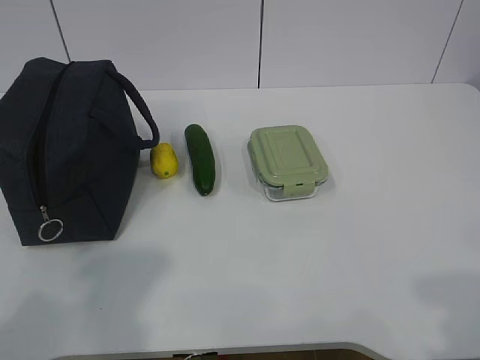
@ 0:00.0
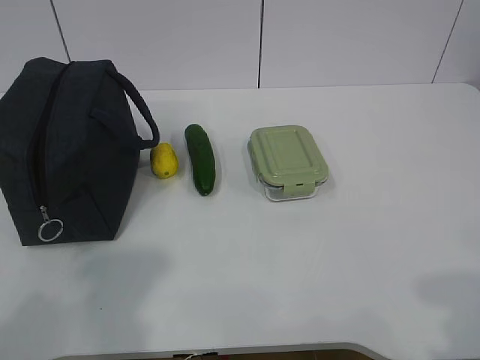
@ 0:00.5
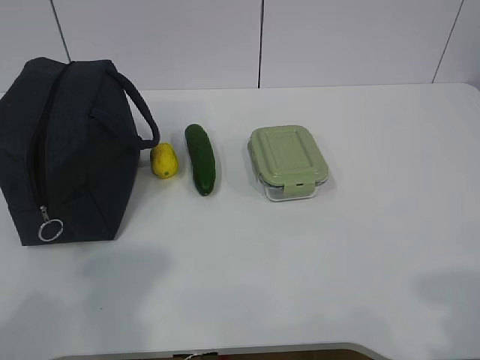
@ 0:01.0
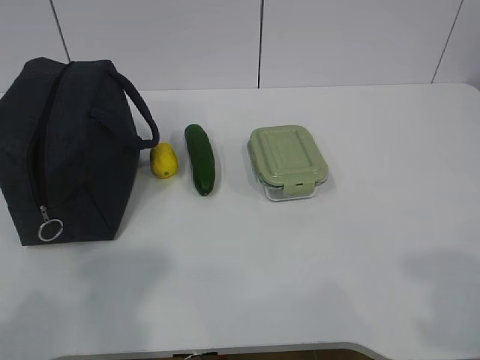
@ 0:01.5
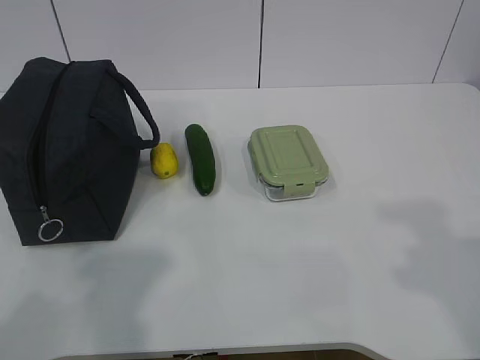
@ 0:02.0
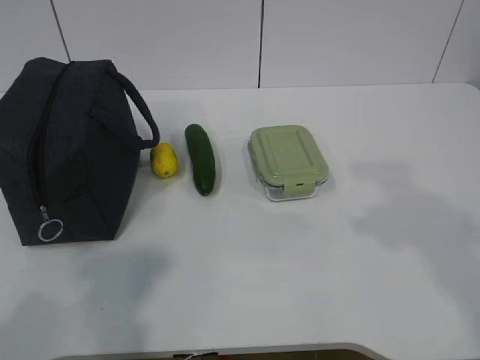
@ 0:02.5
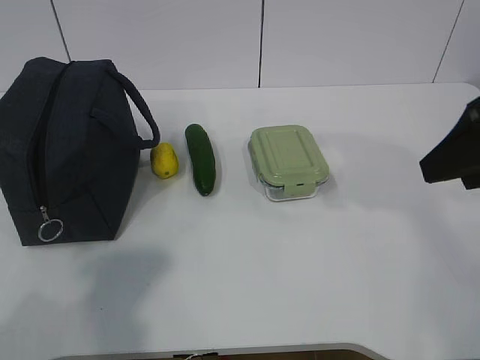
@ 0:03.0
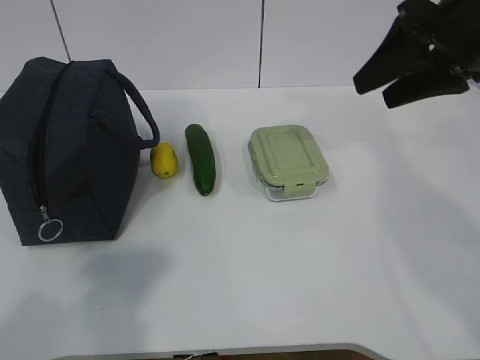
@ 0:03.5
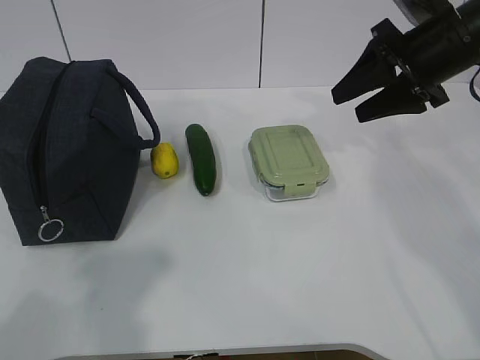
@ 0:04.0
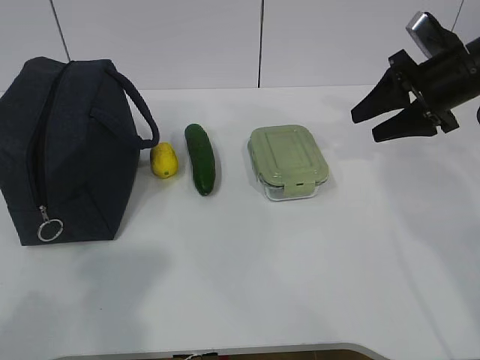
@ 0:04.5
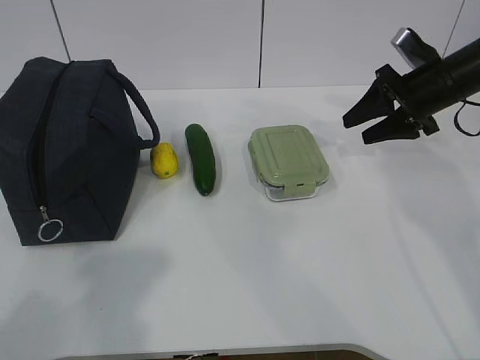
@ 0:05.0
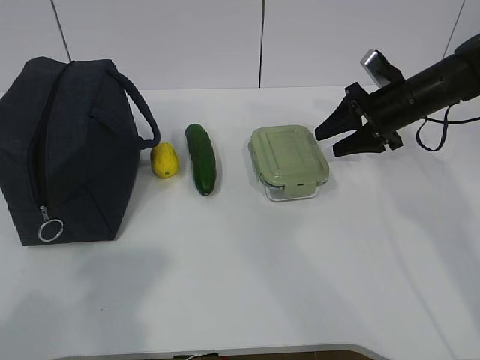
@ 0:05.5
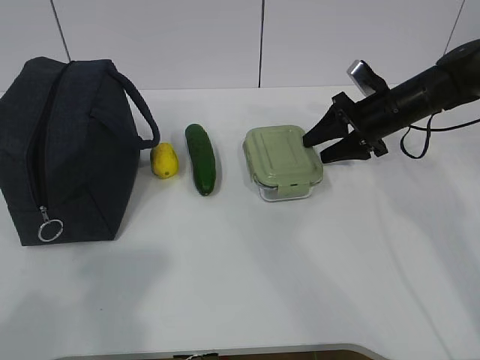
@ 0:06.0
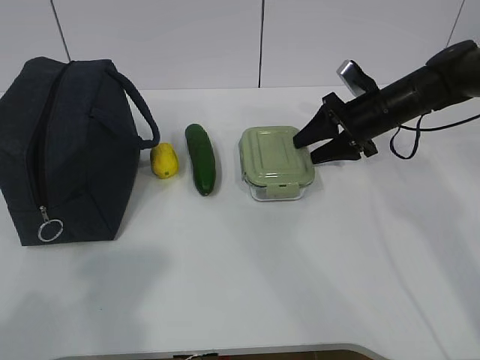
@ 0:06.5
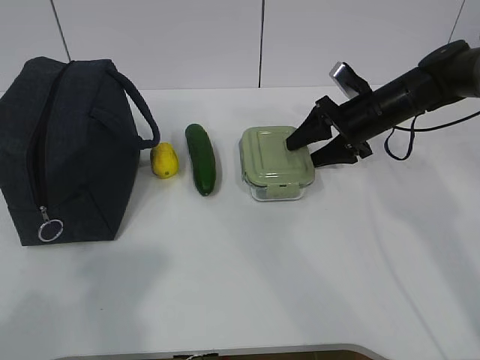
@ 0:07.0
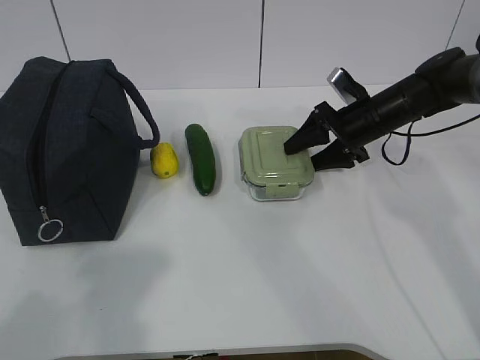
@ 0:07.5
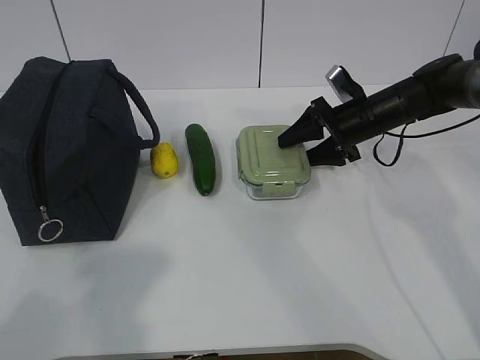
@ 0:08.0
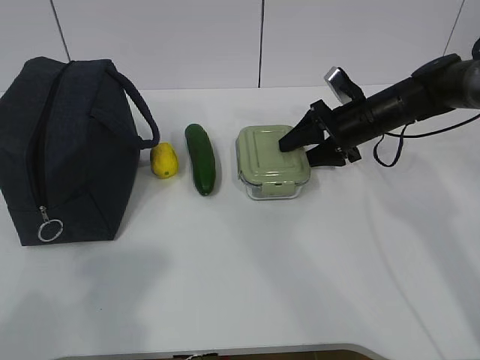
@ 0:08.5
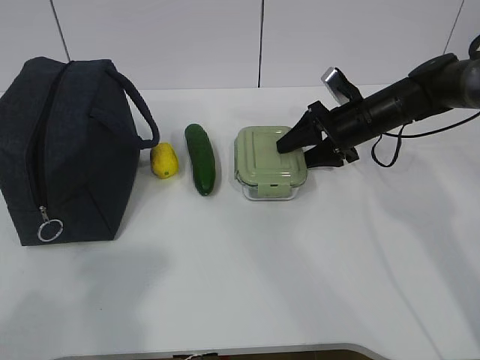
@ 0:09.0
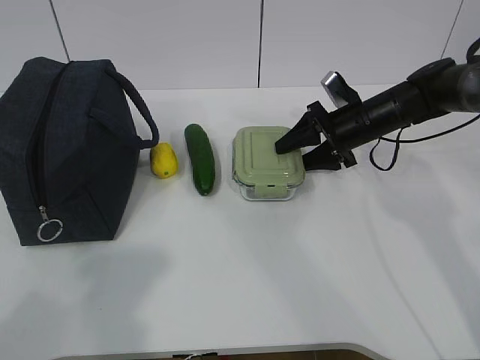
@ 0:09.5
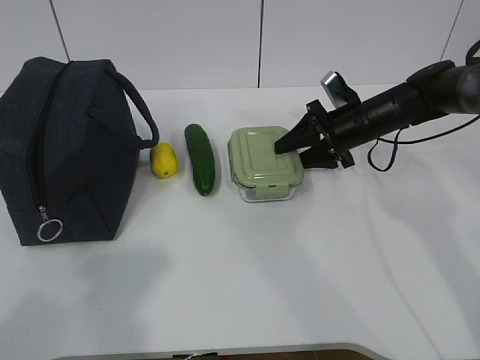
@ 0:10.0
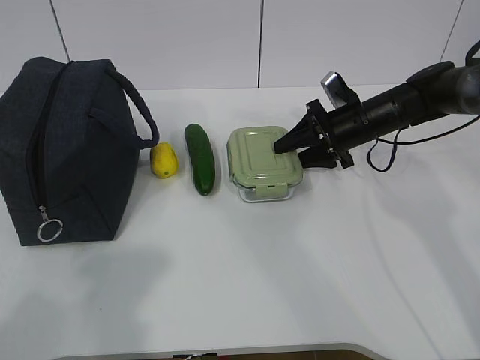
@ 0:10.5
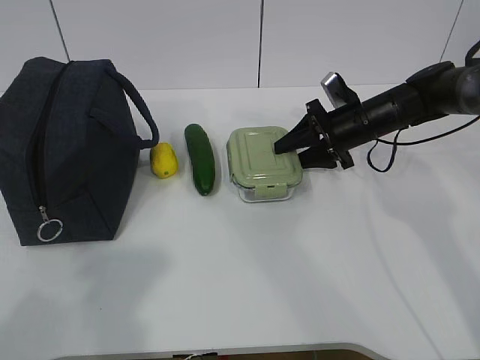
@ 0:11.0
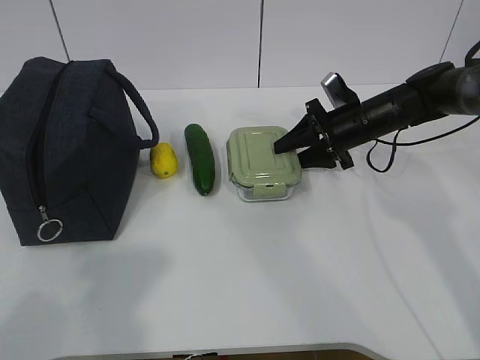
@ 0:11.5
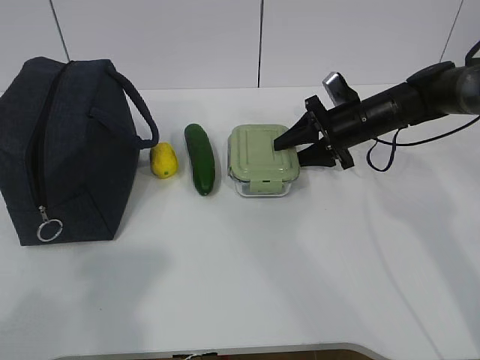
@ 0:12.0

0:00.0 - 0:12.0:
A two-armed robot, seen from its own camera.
Step, 0:00.0 - 0:09.5: Grab the lunch box with your right hand.
0:02.0 - 0:04.0: The right gripper goes roughly 30 cm forward.
0:04.0 - 0:06.0: The right gripper moves downward and forward, roughly 15 cm.
0:06.0 - 0:08.0: The grippers stay close to where they were, moving slightly.
0:08.0 - 0:10.0: The two grippers keep their place.
0:10.0 - 0:12.0: The grippers make only small movements.

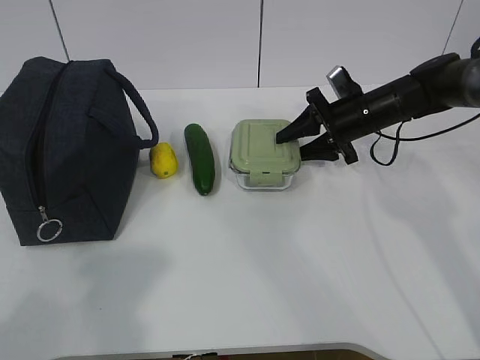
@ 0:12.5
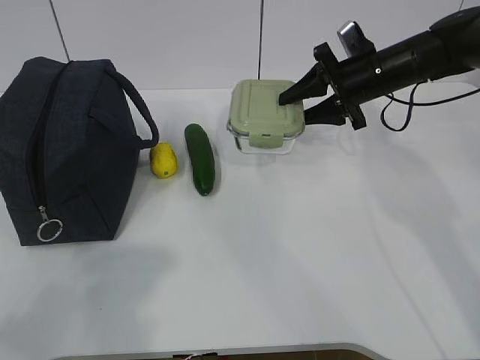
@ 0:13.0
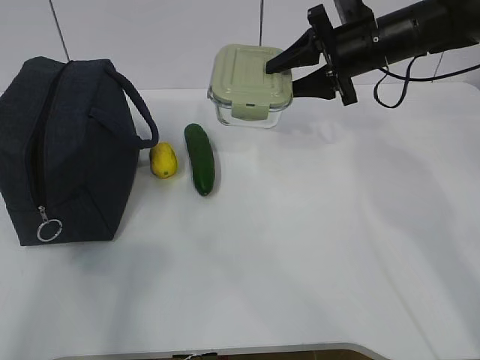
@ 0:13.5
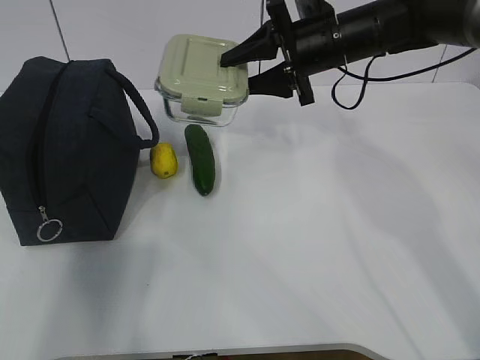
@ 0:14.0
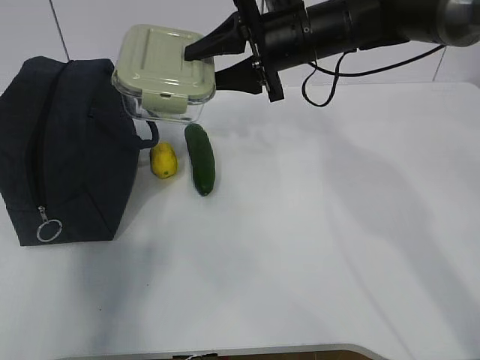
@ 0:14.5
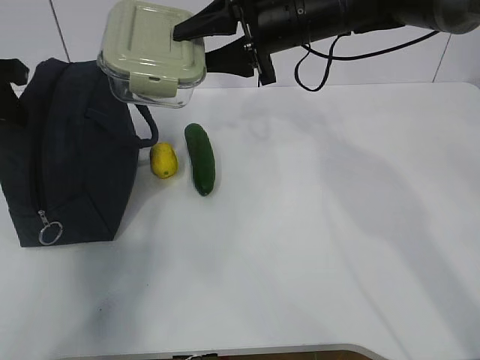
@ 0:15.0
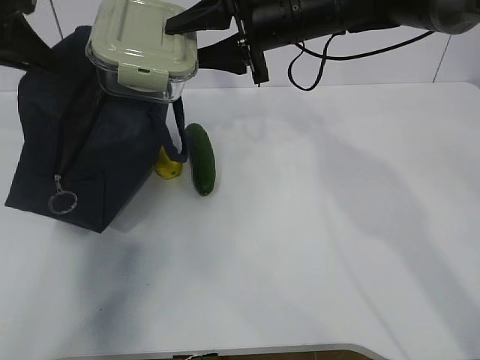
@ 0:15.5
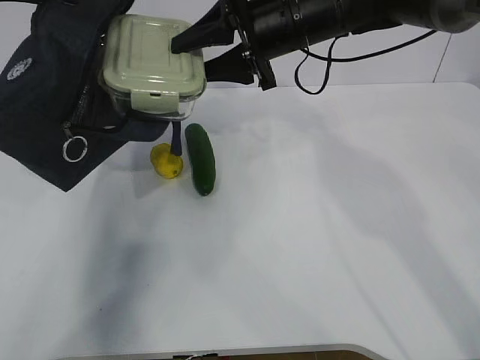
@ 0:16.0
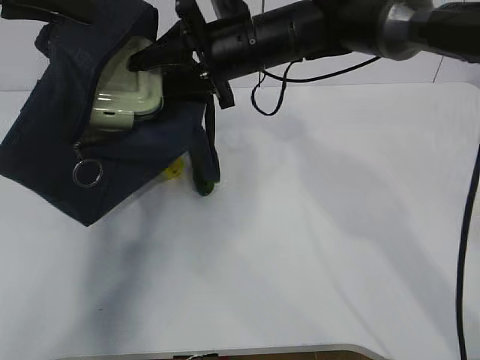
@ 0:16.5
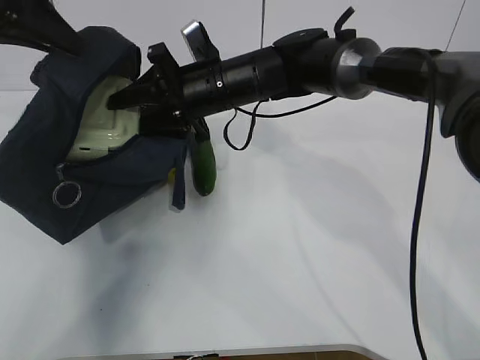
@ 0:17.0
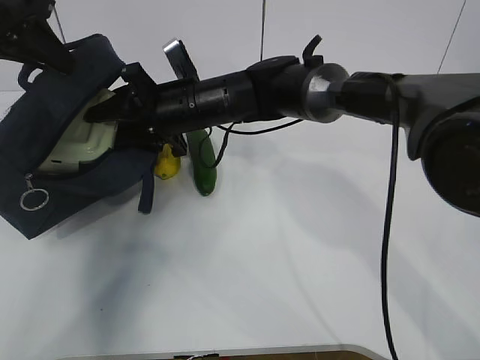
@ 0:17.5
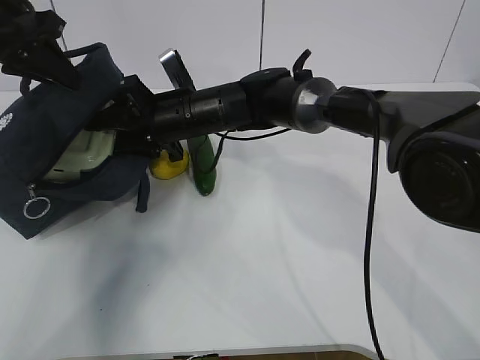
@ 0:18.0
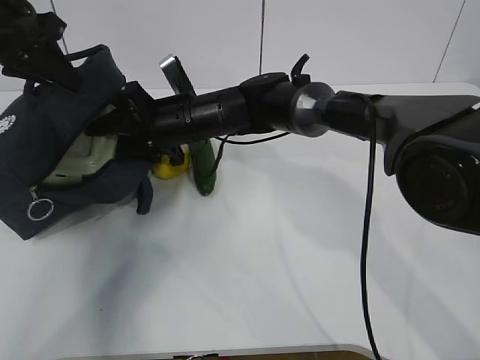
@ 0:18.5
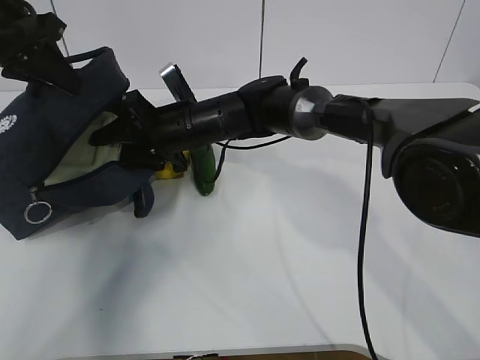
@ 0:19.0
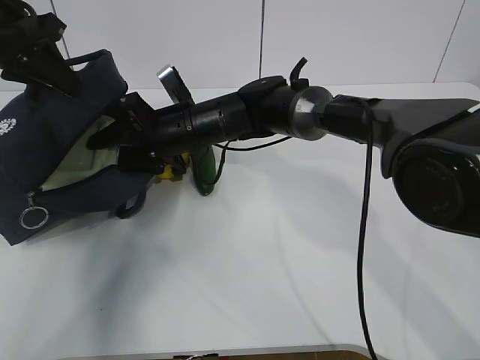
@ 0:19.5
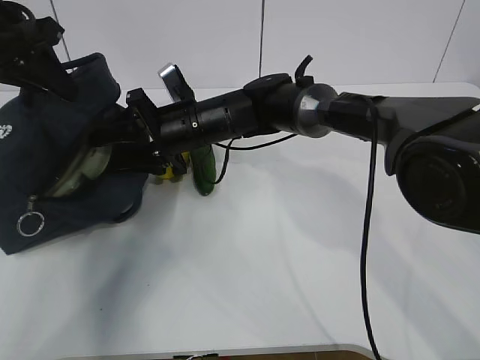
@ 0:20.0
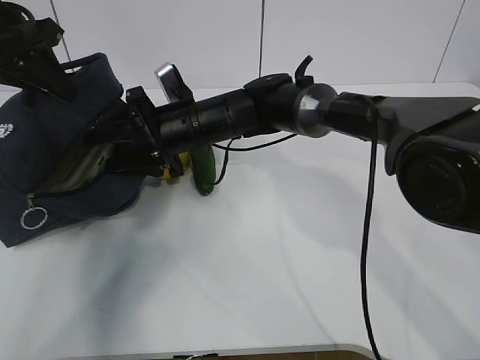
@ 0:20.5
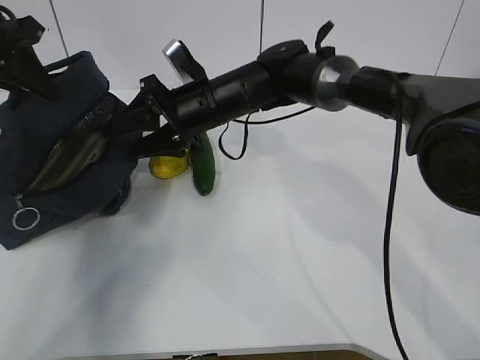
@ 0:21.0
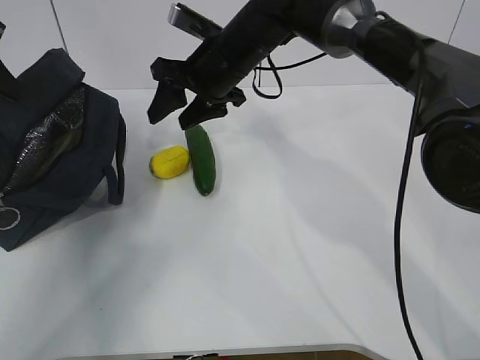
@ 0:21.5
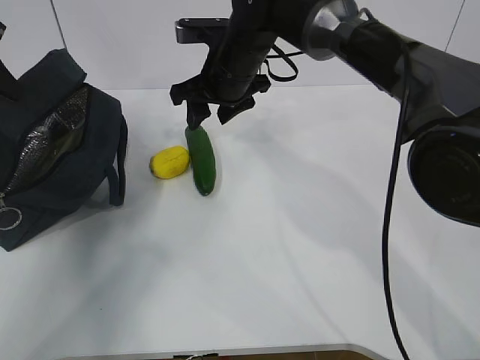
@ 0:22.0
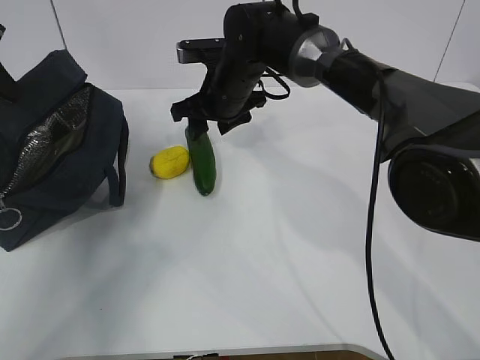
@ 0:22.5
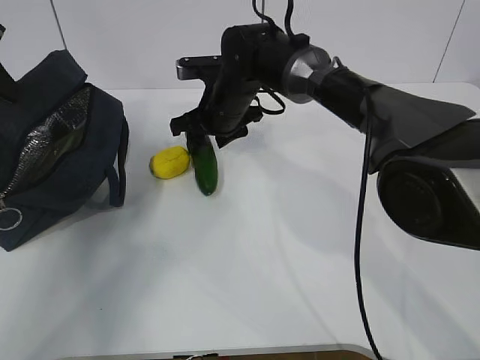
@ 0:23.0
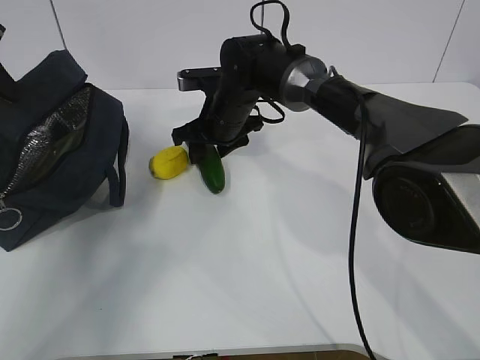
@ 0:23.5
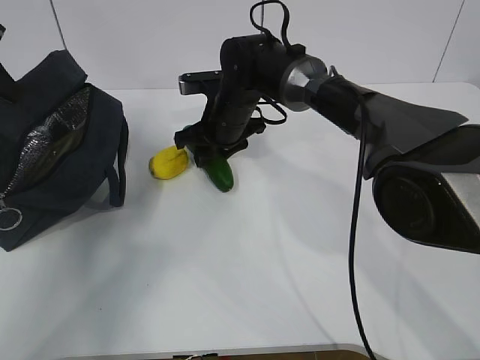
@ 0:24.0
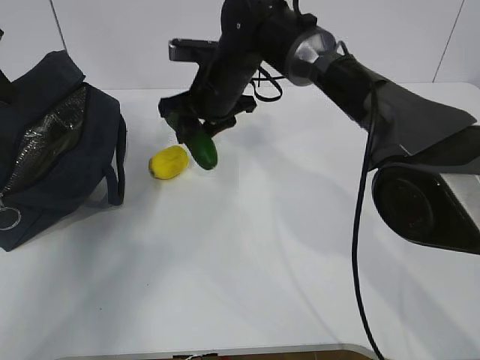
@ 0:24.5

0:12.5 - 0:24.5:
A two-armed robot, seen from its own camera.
Step, 0:13.5 - 0:16.5: Place it into the bag with your right hand.
Step, 0:17.5 - 0:20.0: Grab the cucumber with your right hand.
Step, 0:20.5 - 0:22.5: Place it into the bag with your right hand.
0:12.5 - 0:14.5: The right gripper heads upward and to the left, covering about 15 cm. The left gripper shifts about 30 cm forward, and closes.
0:14.5 - 0:16.5: The right gripper travels to the left by approximately 5 cm. The left gripper is displaced to the right by roughly 5 cm, and closes.
0:16.5 - 0:18.5: The right gripper moves downward and to the left, approximately 15 cm. The left gripper travels downward by some 5 cm.
0:18.5 - 0:20.5: The grippers stay close to where they were, moving slightly.
0:20.5 - 0:22.5: The left gripper shifts approximately 5 cm to the left, while the right gripper moves forward, approximately 5 cm.
0:22.5 - 0:24.5: The grippers stay close to where they were, moving slightly.

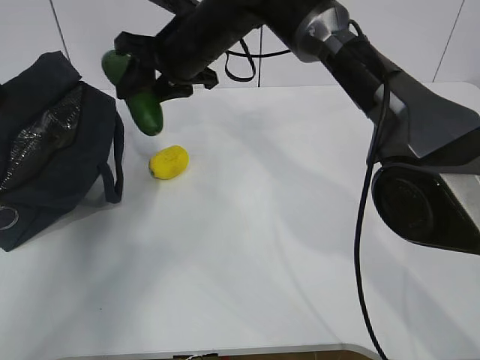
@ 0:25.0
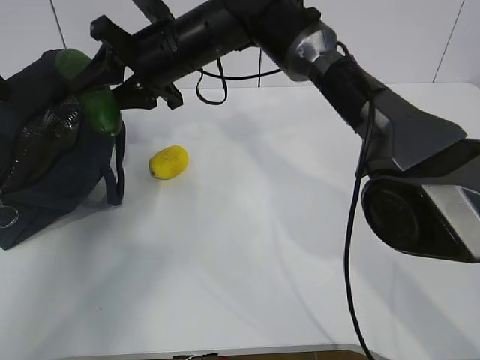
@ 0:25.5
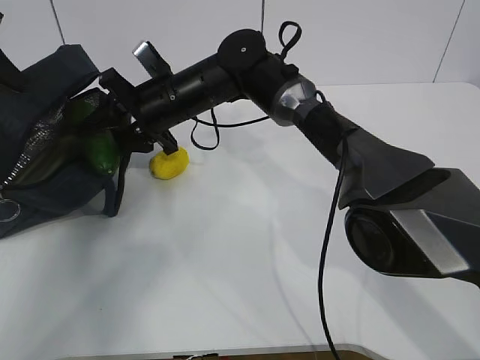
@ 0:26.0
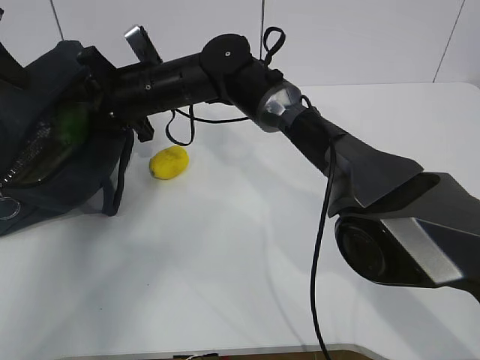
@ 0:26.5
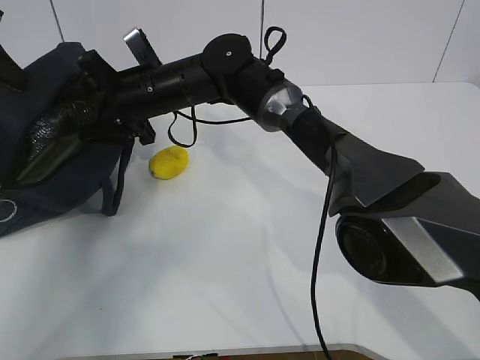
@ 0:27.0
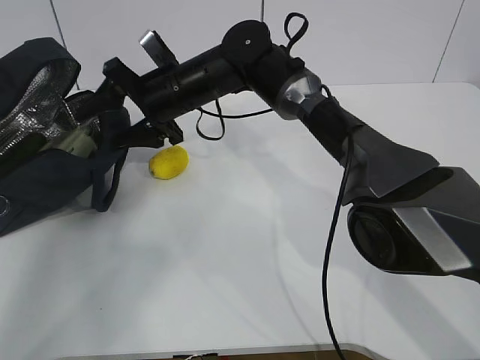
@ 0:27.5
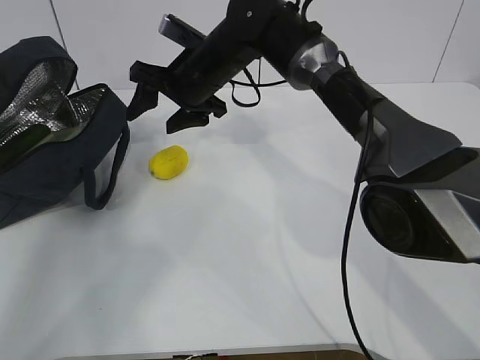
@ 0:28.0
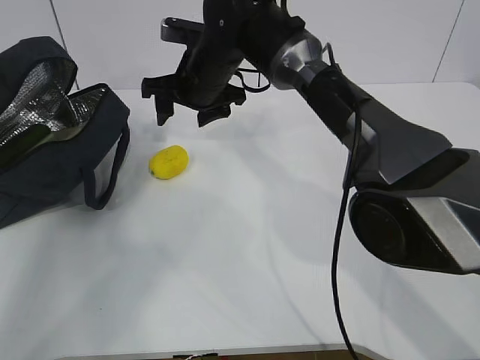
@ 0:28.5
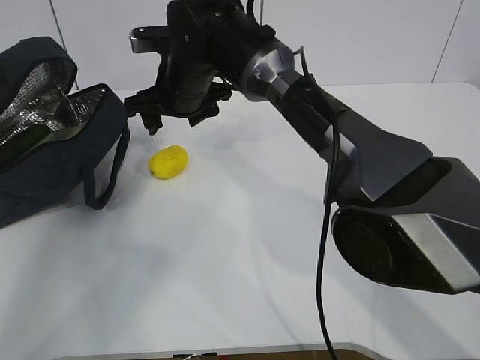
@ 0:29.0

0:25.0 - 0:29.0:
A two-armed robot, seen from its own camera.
0:25.0 - 0:27.0: The right gripper shifts roughly 10 cm downward and to the left, and opens.
0:27.0 - 0:29.0: The left gripper moves to the left, about 5 cm.
